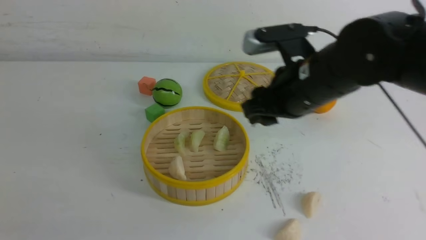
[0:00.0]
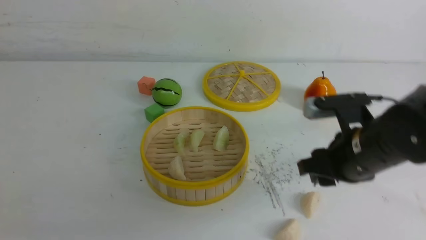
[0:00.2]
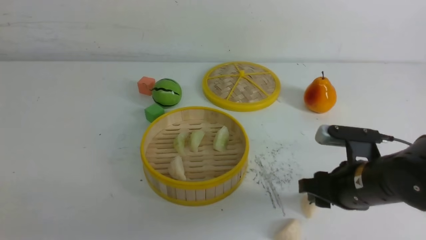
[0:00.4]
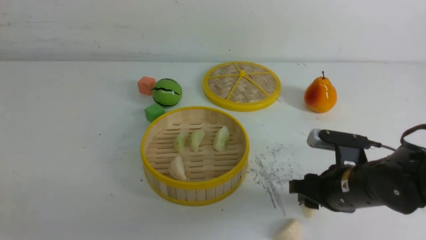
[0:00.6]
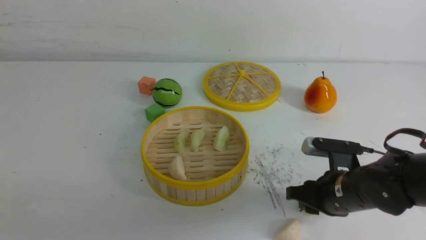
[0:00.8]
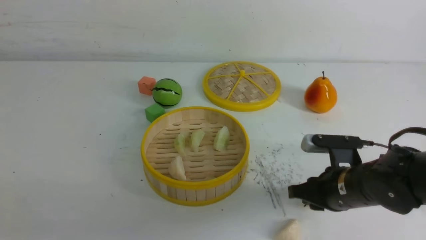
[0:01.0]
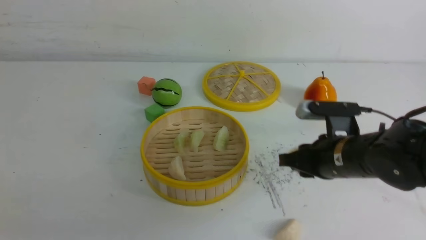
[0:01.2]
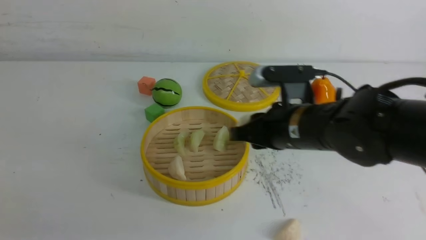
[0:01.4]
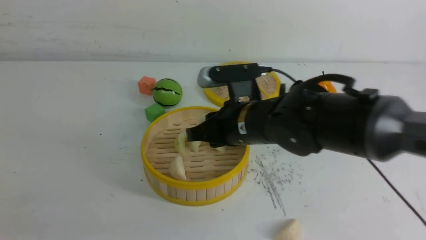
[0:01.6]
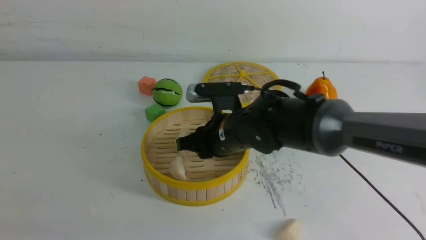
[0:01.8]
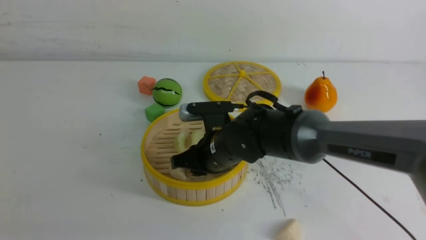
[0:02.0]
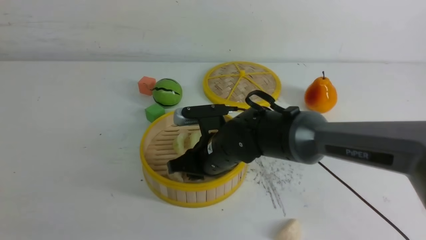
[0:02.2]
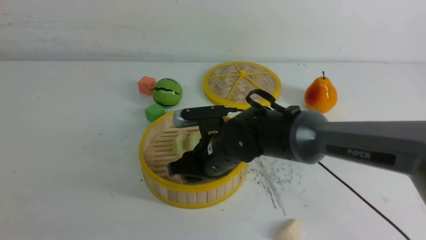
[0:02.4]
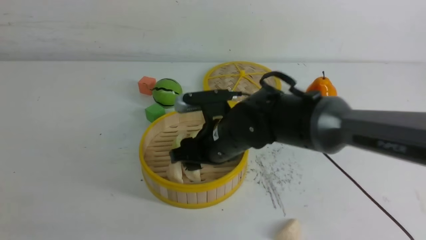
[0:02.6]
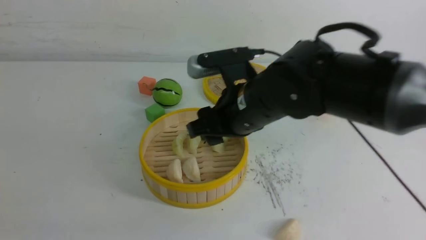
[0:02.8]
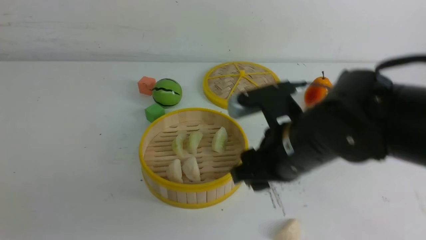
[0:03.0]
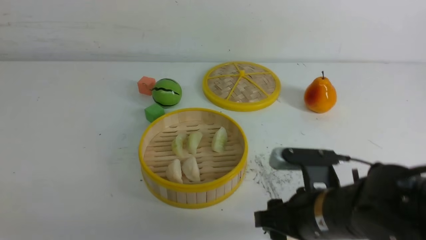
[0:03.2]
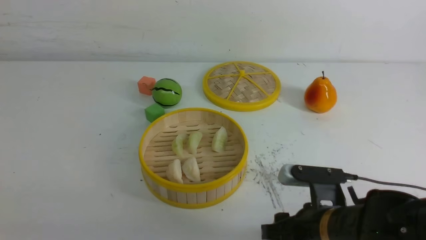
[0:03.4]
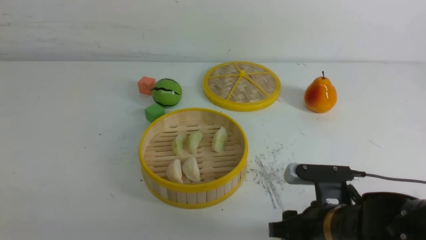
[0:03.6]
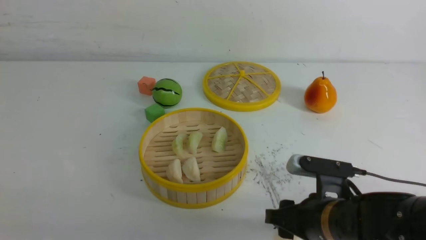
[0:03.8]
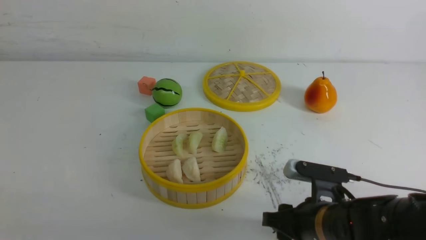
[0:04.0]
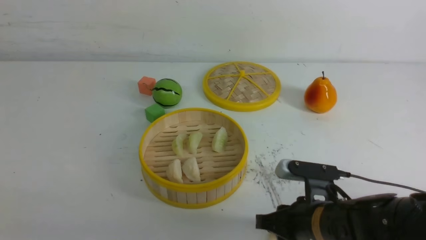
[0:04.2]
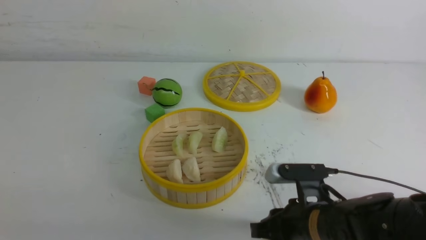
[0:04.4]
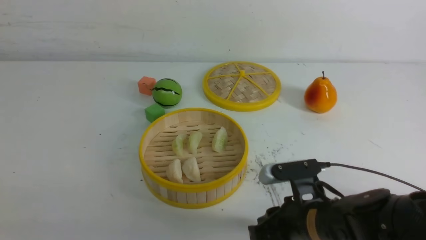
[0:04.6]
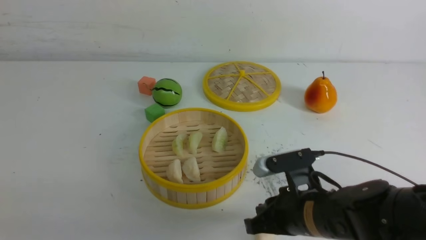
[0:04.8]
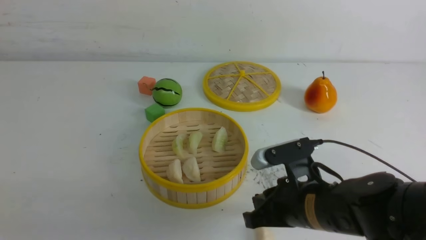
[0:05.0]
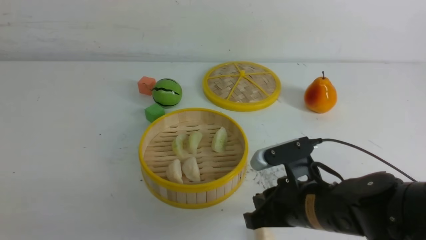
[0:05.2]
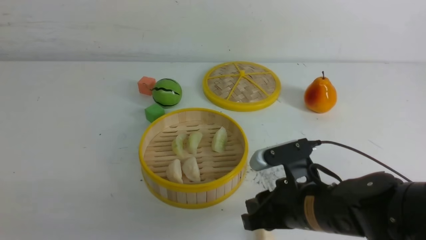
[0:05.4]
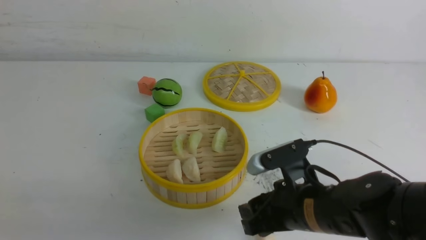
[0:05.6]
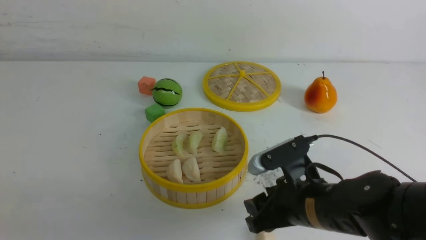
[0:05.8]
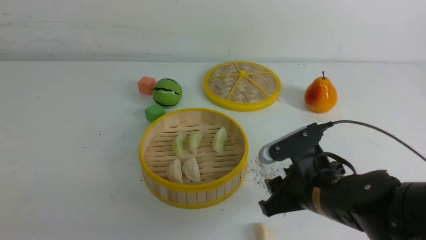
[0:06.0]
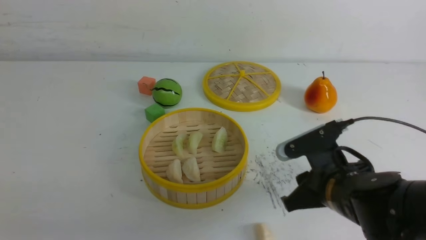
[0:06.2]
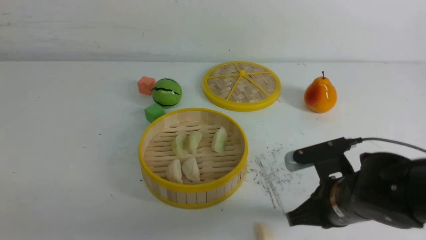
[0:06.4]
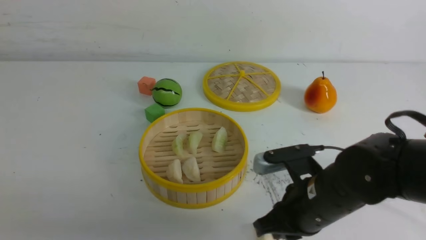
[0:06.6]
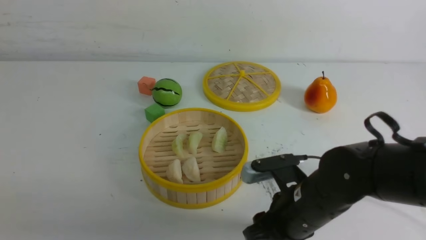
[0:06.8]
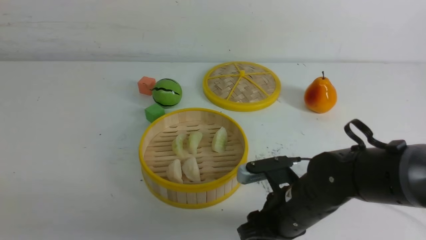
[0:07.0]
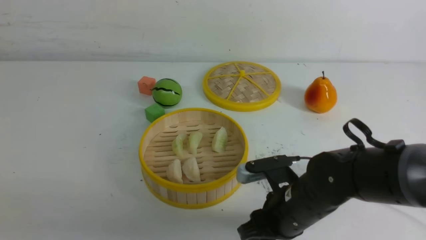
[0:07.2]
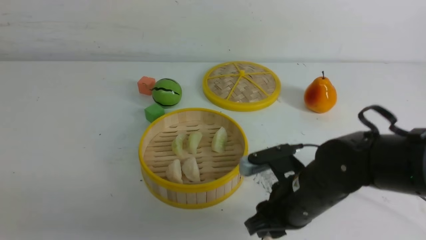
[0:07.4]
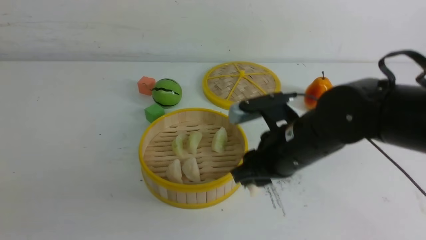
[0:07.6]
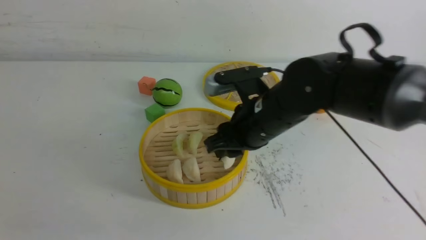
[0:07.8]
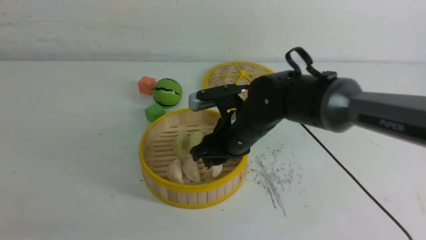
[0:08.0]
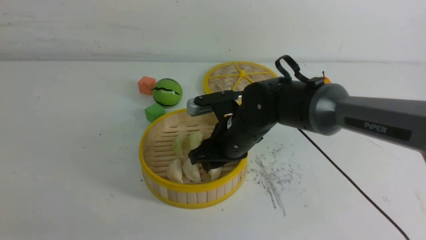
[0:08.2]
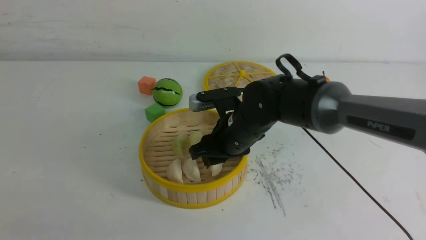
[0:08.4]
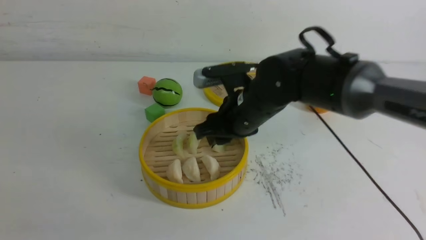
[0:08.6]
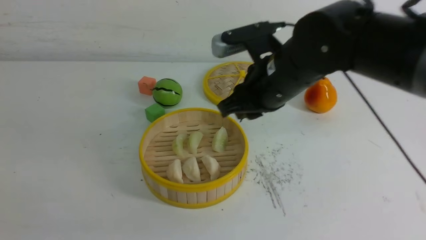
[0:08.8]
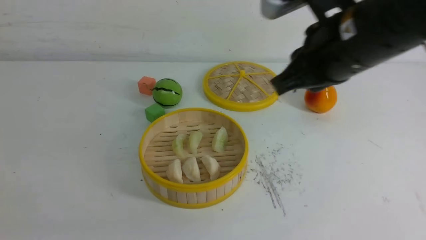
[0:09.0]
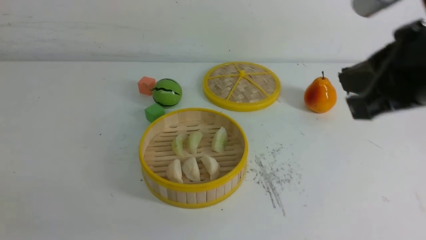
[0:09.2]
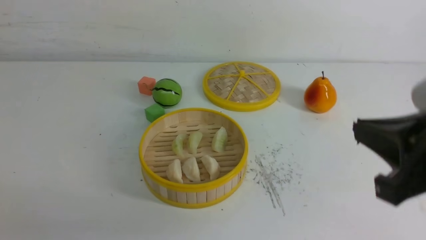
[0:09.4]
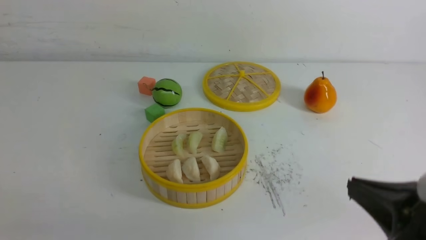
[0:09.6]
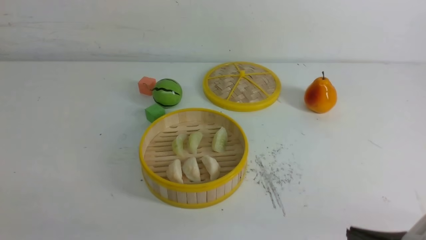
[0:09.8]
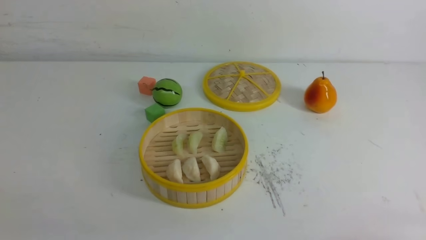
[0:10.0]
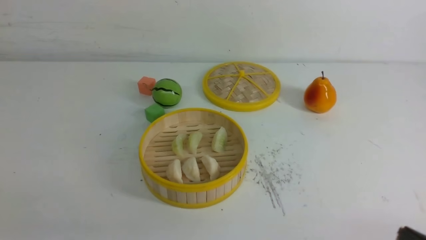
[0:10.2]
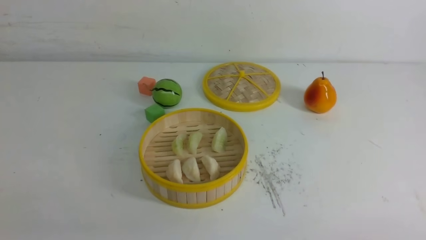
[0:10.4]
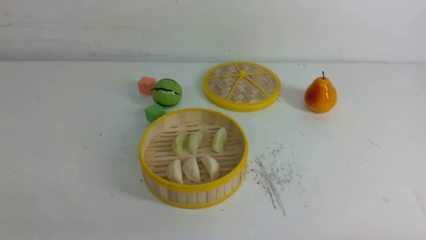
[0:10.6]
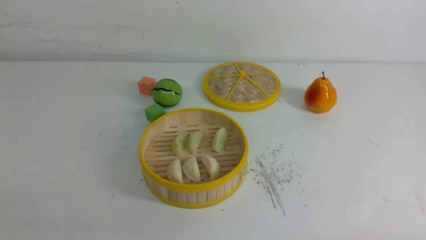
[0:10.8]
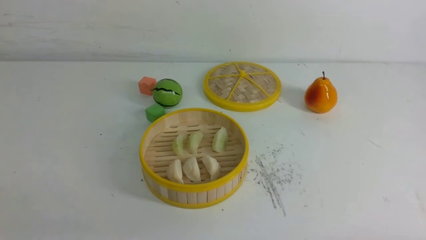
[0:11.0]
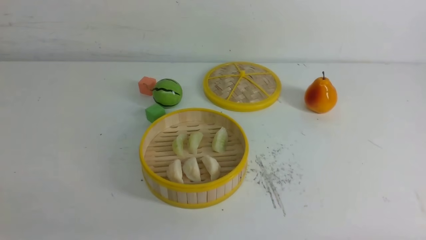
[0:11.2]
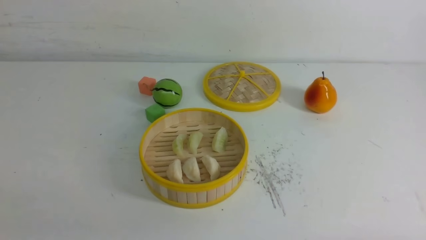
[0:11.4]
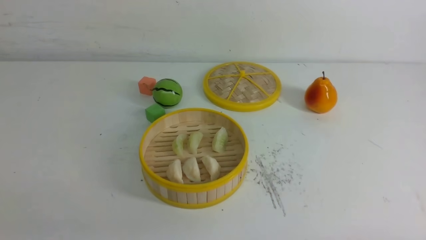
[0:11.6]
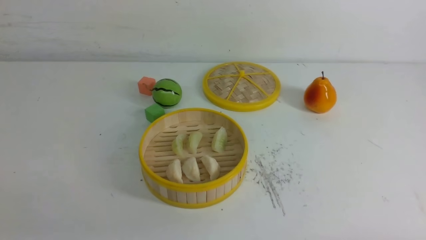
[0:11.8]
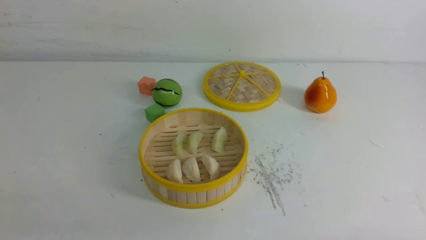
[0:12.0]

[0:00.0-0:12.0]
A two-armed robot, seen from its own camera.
Task of the whole recording: put the dumplings into the steamer on the white table.
Step, 0:00.0 to 0:01.0: use the right arm to grab a dumpling.
Step, 0:01.2 to 0:02.4: use the right arm to put the dumpling into the steamer.
Step, 0:02.8 to 0:04.6: use the right arm to grab a dumpling.
Step, 0:04.8 to 0:08.4: use the right arm to put the dumpling into the steamer.
0:00.0 to 0:01.6: The right gripper moves to the left, some 5 cm, and closes.
0:01.6 to 0:03.0: The right gripper shifts roughly 5 cm backward, goes downward and returns, about 5 cm each way, and opens.
0:03.0 to 0:04.4: The right gripper travels downward by roughly 10 cm, and closes.
0:04.4 to 0:06.0: The right gripper opens its fingers.
0:06.0 to 0:07.6: The right gripper is displaced upward and to the left by roughly 10 cm, and closes and opens again.
0:07.6 to 0:09.0: The right gripper travels upward by about 15 cm, and closes its fingers.
0:09.0 to 0:10.4: The right gripper is displaced downward, backward and to the right by some 30 cm.

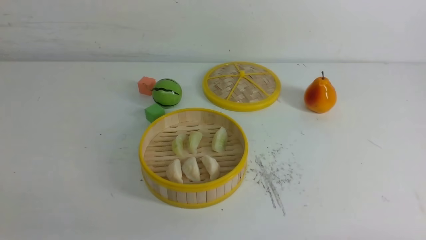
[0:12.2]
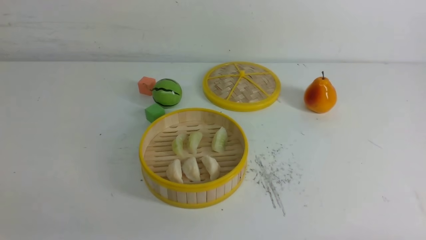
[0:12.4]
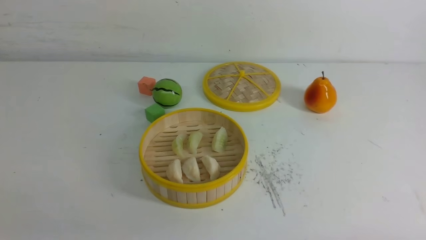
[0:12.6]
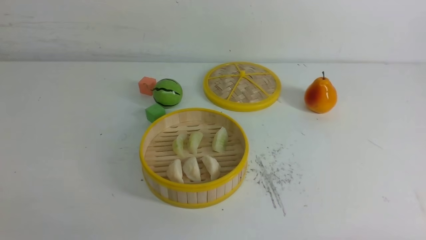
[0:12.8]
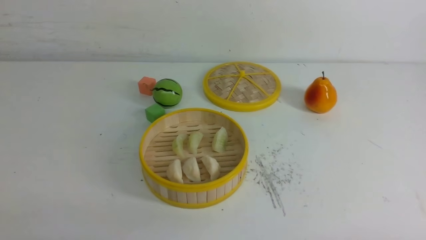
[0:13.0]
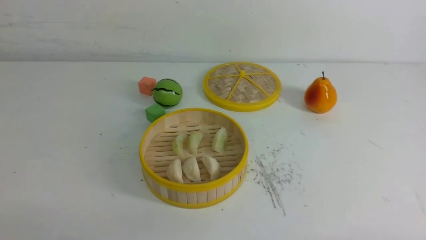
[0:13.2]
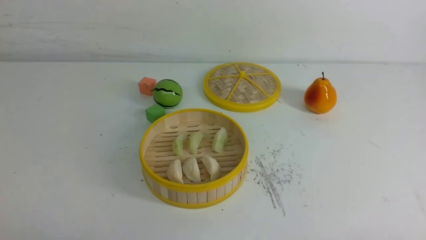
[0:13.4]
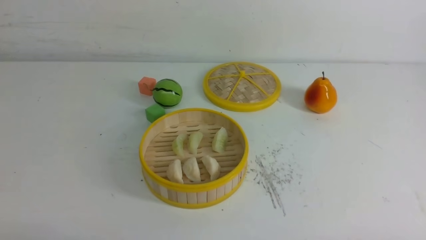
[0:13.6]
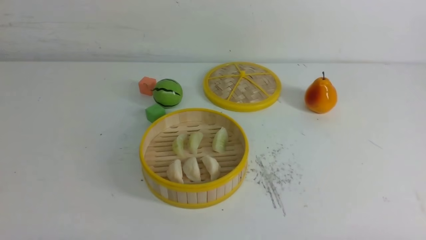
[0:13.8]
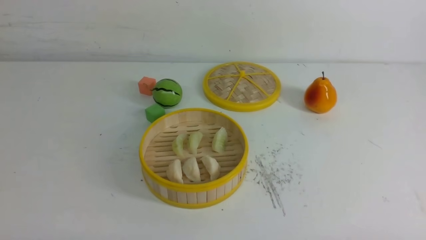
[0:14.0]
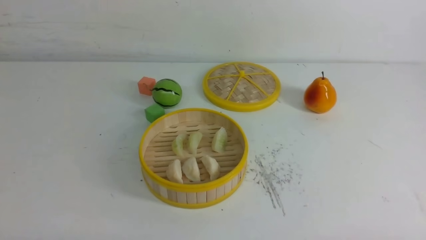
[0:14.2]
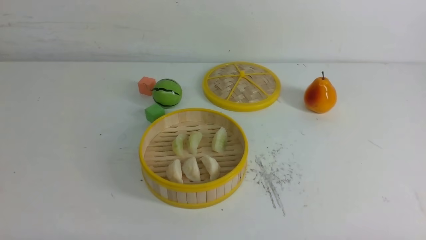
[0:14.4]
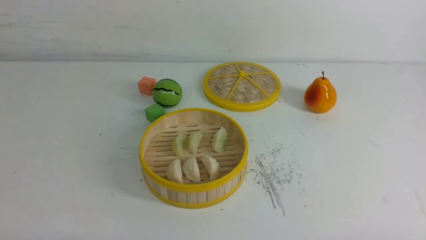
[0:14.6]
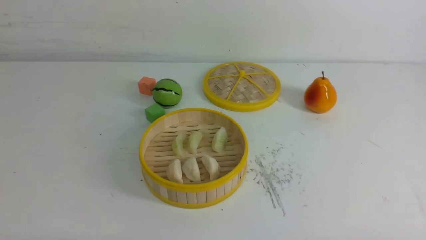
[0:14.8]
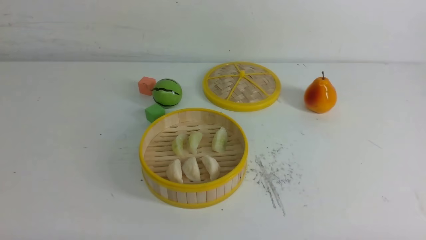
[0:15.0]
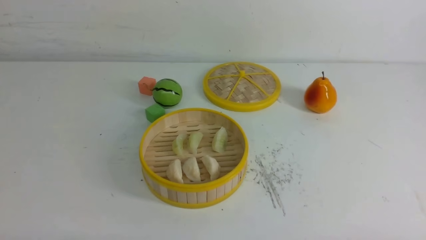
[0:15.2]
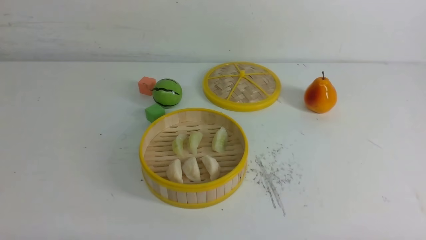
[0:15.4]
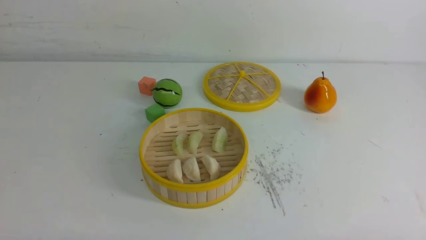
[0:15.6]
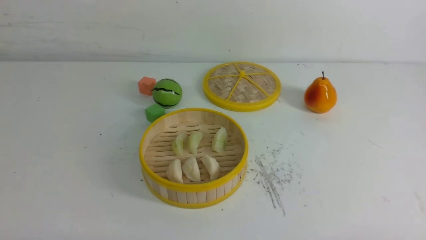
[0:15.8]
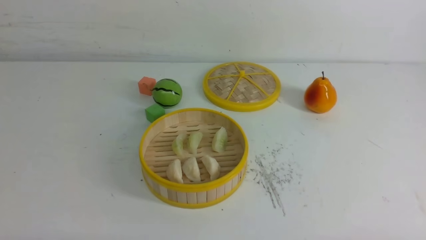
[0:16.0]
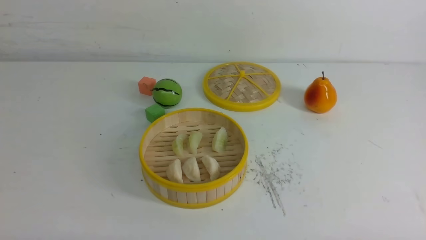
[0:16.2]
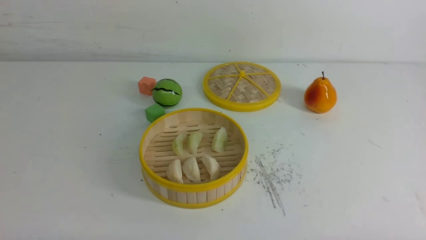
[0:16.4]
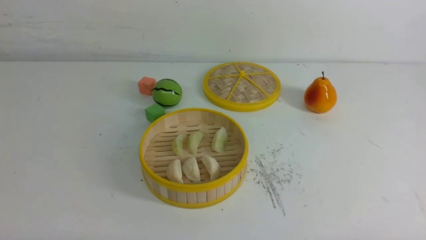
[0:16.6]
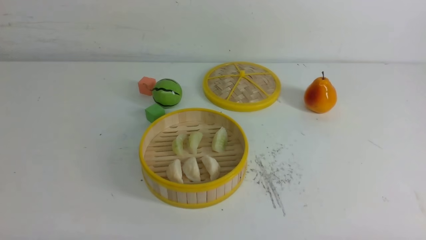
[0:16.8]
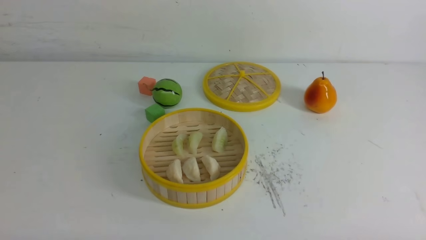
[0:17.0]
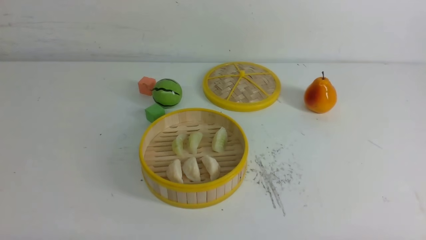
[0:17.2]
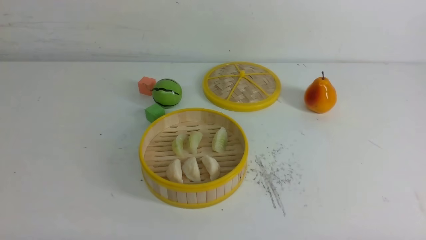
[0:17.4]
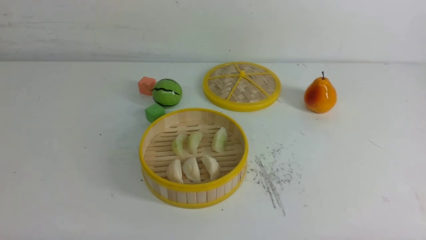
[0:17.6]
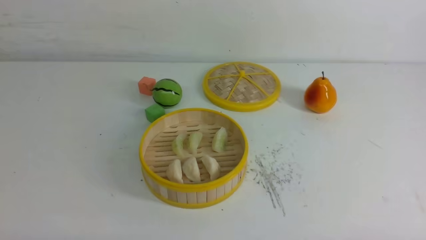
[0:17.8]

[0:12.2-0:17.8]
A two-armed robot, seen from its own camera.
Task of the whole recording: put the dumplings into the steamer on the white table.
0:15.0 to 0:17.8: Both grippers stay about where they are.
